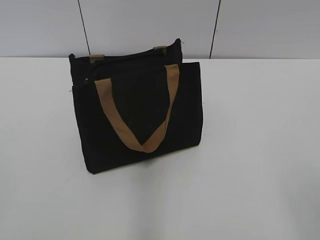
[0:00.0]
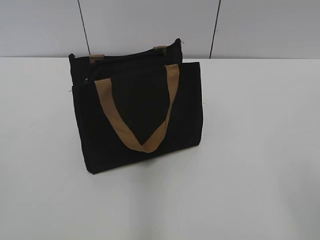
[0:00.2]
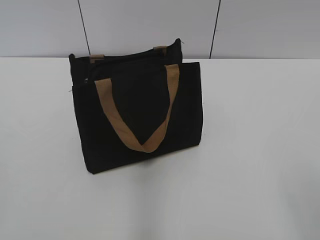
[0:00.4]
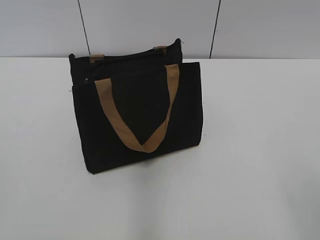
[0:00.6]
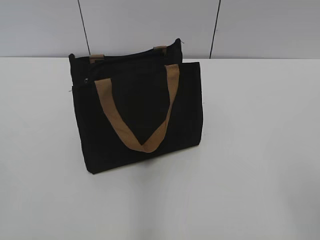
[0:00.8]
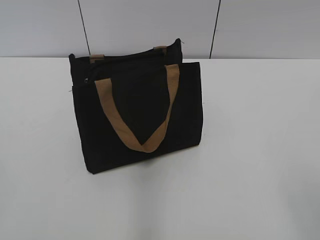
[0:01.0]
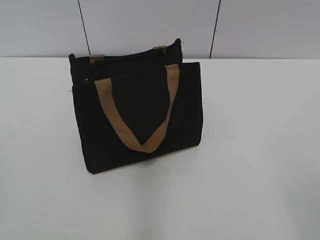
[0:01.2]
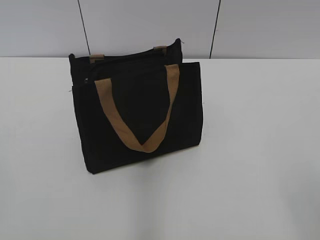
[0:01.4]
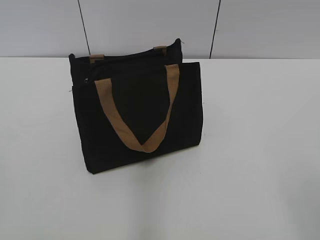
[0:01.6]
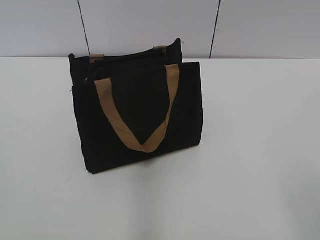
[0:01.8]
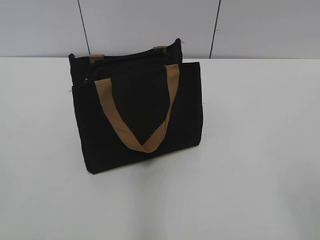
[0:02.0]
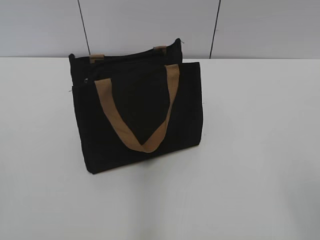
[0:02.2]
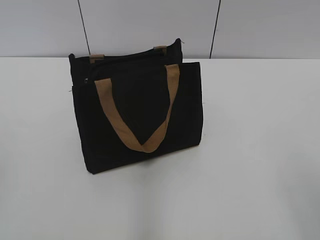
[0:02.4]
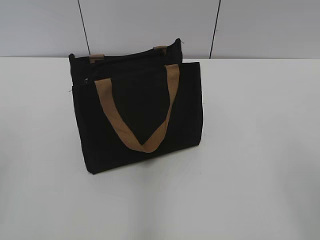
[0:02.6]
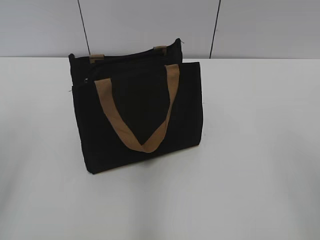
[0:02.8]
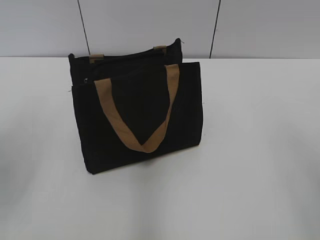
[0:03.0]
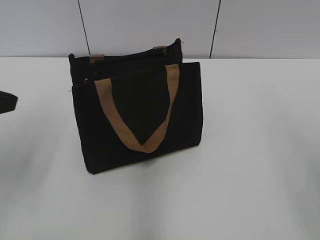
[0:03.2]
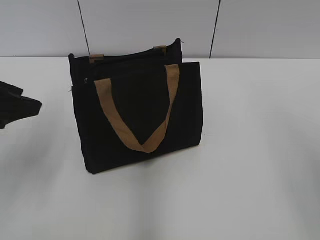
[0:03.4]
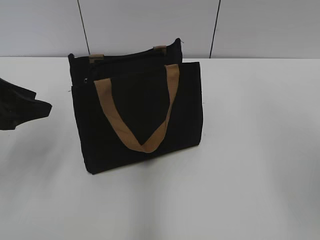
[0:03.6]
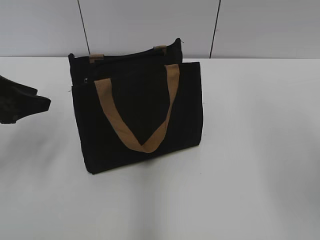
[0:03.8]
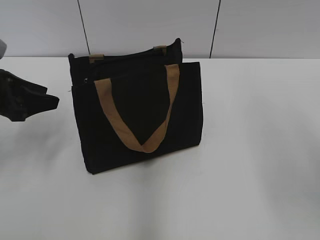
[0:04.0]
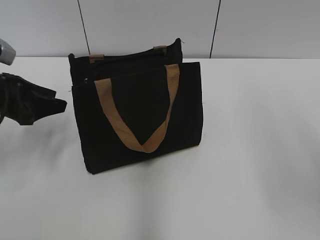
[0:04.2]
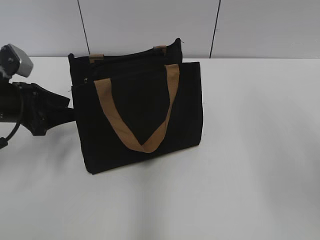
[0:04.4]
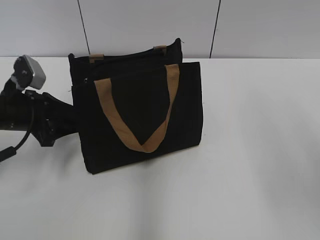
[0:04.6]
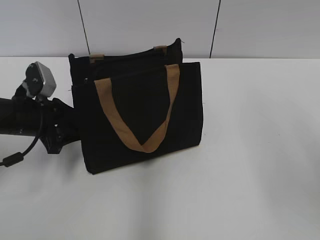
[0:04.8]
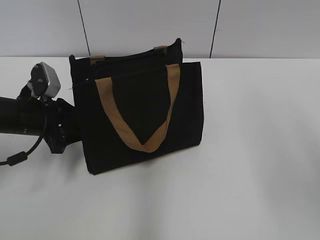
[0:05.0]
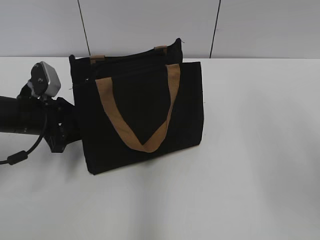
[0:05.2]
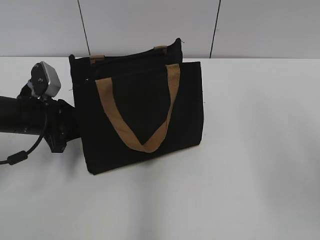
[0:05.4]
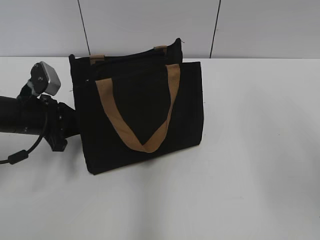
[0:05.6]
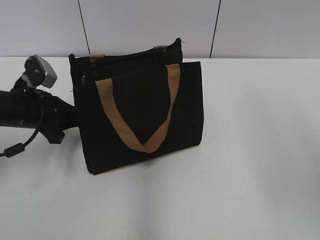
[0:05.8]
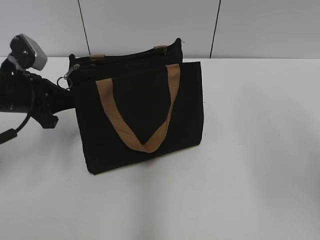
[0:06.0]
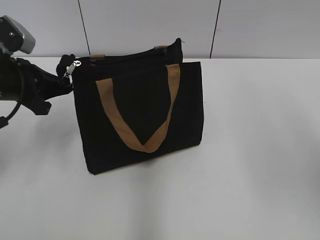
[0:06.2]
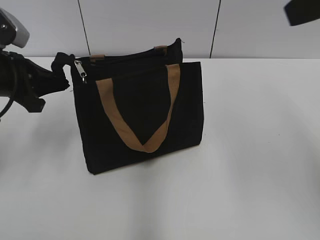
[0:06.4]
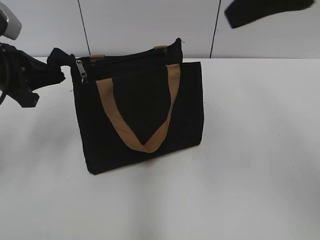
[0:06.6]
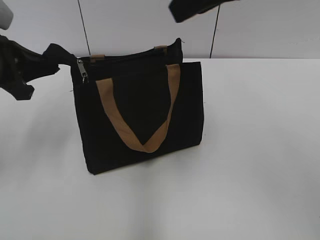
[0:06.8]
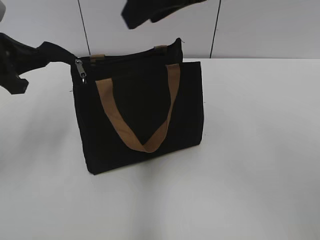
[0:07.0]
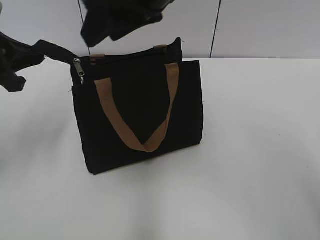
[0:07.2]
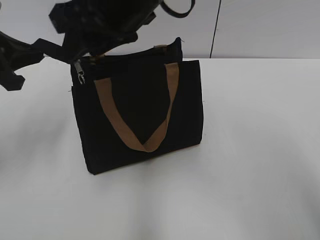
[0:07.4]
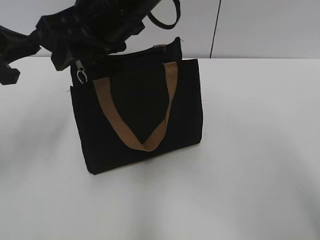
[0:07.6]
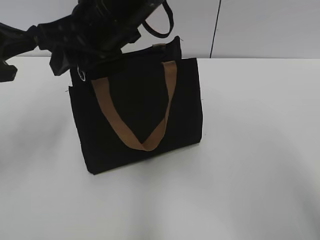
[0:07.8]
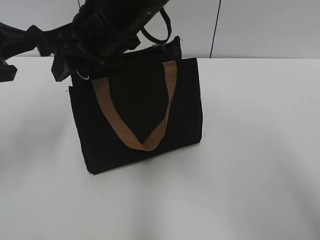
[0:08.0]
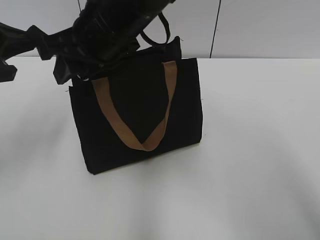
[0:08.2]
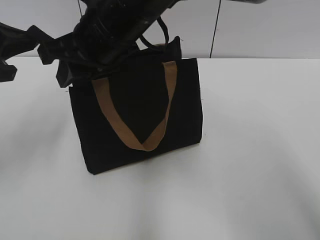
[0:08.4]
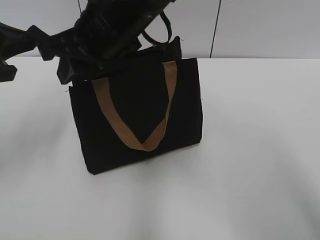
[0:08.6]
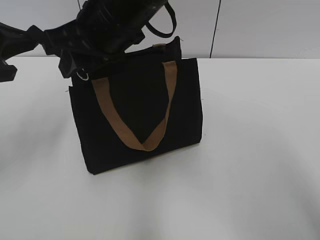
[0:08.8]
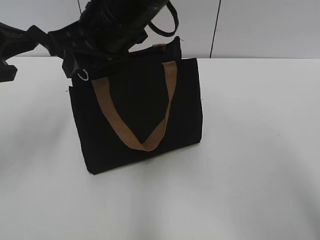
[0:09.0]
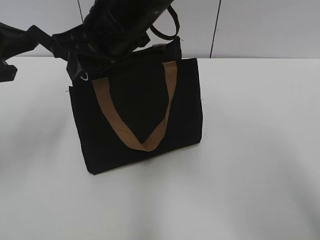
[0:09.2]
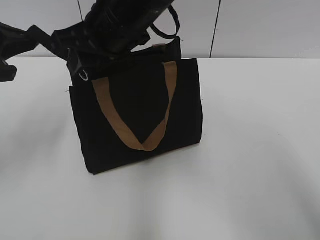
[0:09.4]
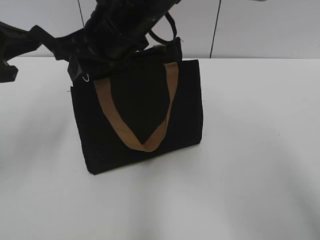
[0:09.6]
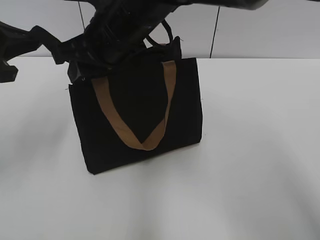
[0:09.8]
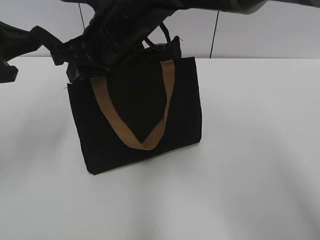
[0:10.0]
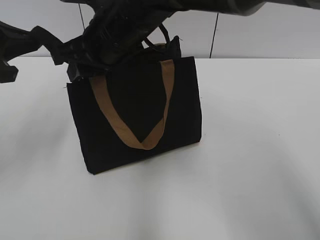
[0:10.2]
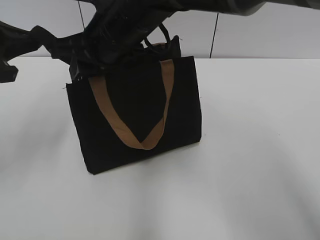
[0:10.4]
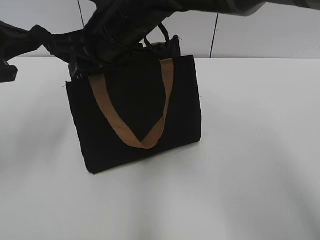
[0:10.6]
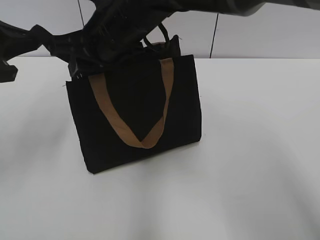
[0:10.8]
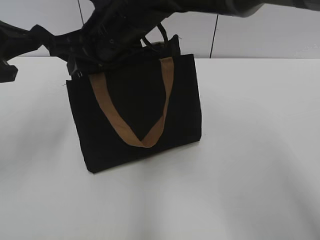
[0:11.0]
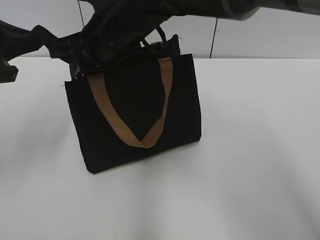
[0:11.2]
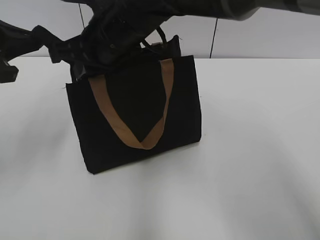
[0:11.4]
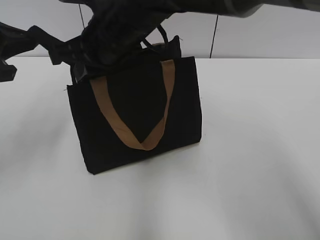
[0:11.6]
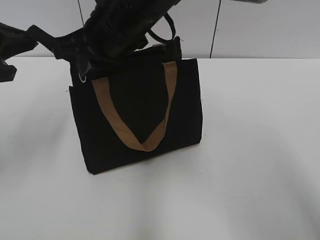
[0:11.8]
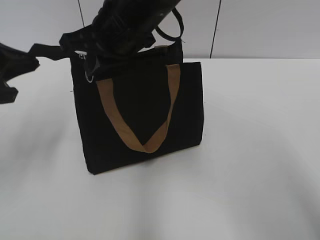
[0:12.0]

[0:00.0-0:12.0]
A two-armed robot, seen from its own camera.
0:01.6 to 0:03.0: The left gripper heads forward, covering approximately 15 cm.
0:03.0 to 0:04.4: The left gripper heads forward and downward, covering about 20 cm.
0:04.4 to 0:06.0: The left gripper closes.
0:06.0 to 0:07.6: The left gripper heads upward, covering about 10 cm, while the right gripper moves to the left and forward, approximately 30 cm.
0:07.6 to 0:09.0: The grippers move only a little.
0:09.0 to 0:10.4: The grippers stay close to where they were, moving slightly.
0:10.4 to 0:12.0: The right gripper closes up.

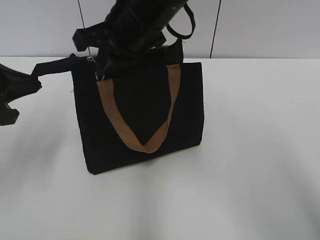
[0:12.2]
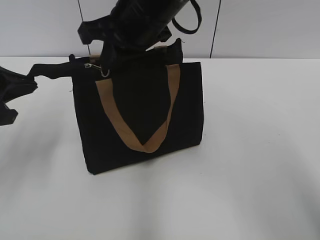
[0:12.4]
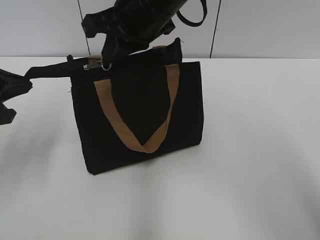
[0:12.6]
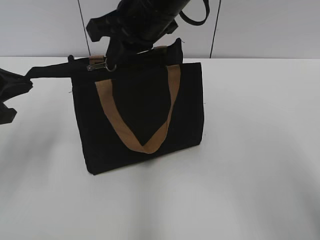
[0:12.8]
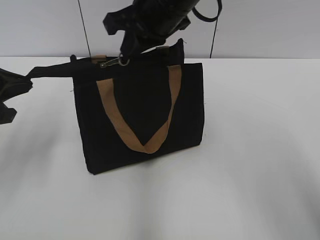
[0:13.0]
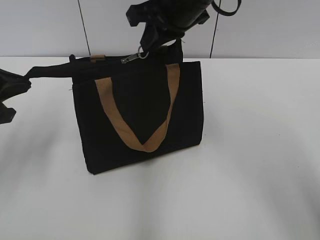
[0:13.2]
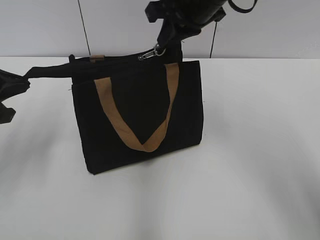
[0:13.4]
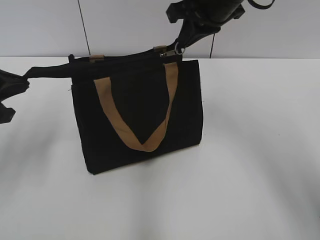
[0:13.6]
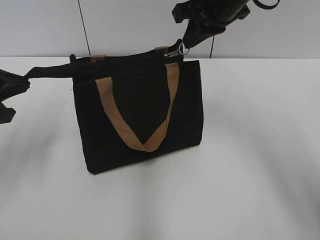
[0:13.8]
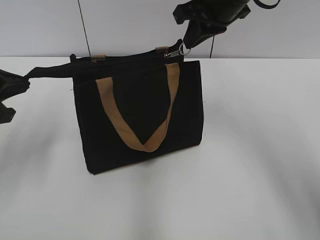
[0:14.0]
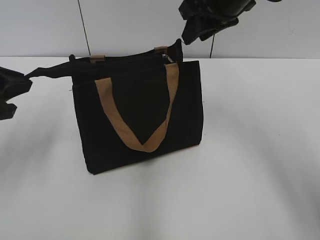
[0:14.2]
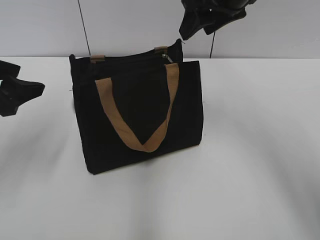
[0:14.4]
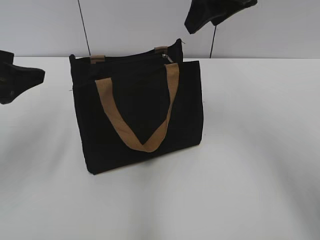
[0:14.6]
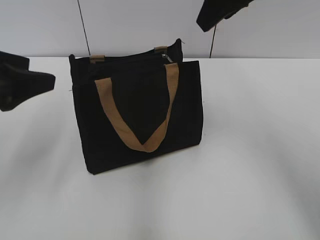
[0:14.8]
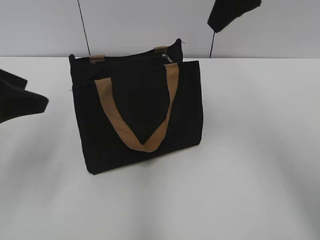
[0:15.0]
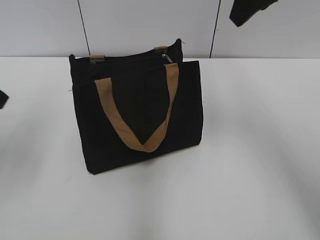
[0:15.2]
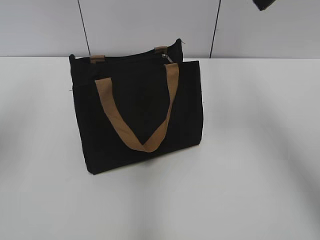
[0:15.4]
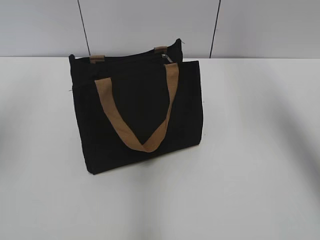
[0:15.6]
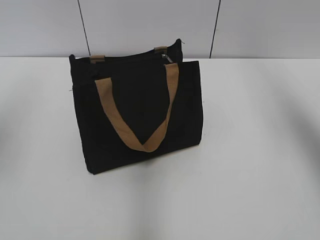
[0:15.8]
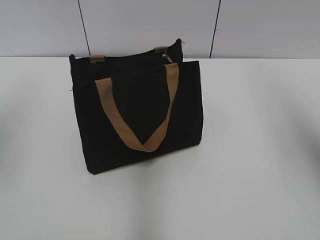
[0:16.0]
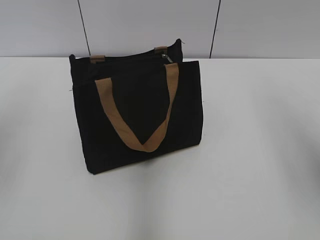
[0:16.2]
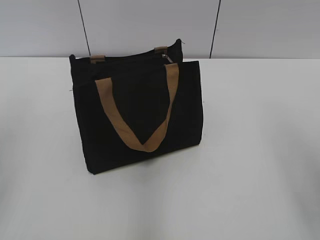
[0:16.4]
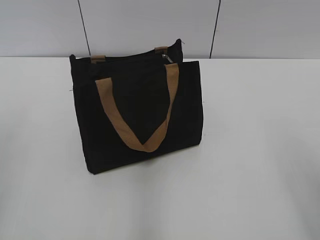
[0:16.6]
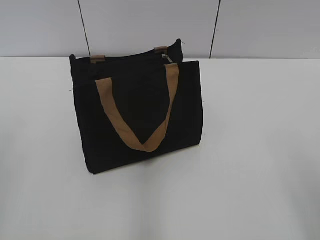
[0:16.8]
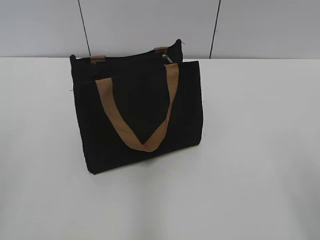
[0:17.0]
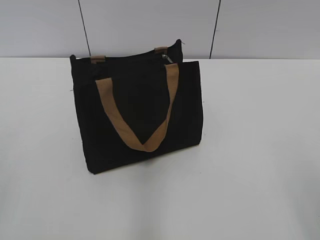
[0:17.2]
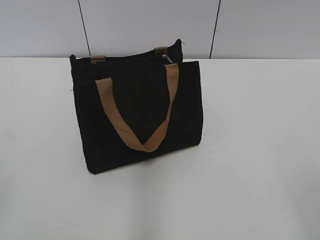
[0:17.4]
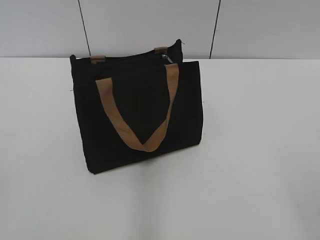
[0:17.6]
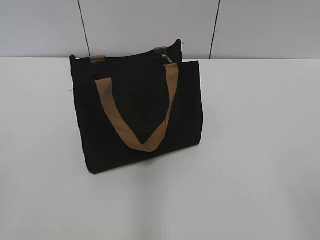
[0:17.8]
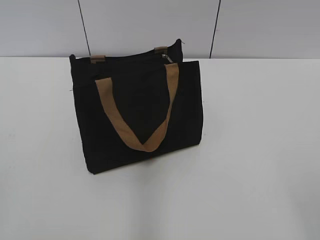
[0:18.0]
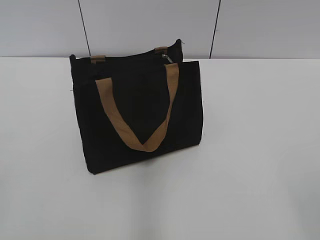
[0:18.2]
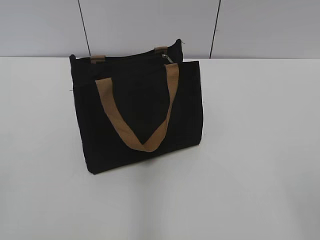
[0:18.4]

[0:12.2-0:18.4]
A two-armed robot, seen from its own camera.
Step, 0:14.2 to 0:14.4: Grab the zipper with your left hand.
0:12.2 to 0:13.8: The right gripper travels to the right and forward by roughly 15 cm.
0:13.8 to 0:15.4: The left gripper moves upward, roughly 10 cm, and opens its fingers. The right gripper moves upward, backward and to the right, approximately 15 cm, and opens its fingers.
0:15.4 to 0:16.8: The right gripper shifts about 30 cm backward, downward and to the right.

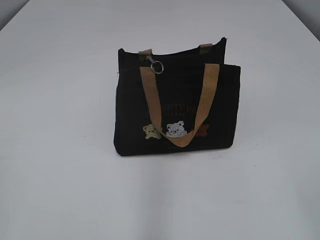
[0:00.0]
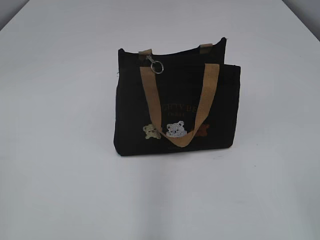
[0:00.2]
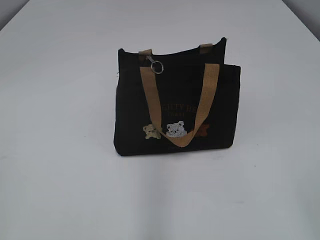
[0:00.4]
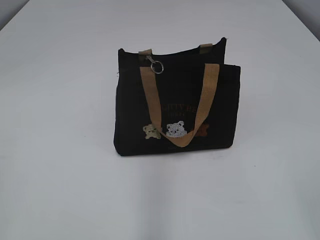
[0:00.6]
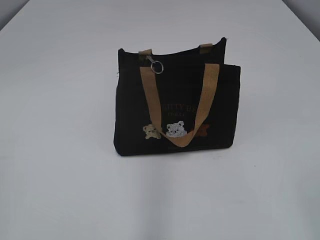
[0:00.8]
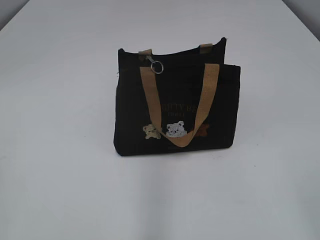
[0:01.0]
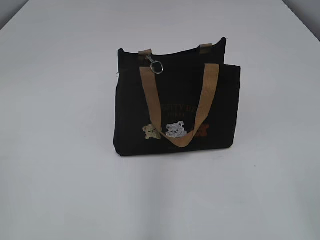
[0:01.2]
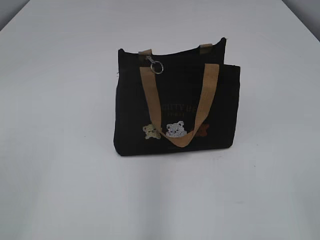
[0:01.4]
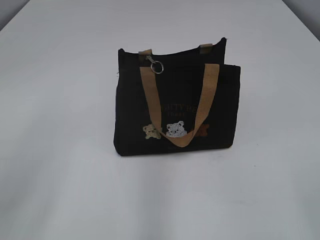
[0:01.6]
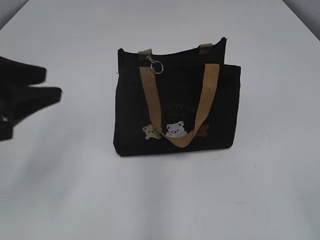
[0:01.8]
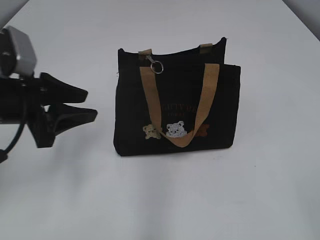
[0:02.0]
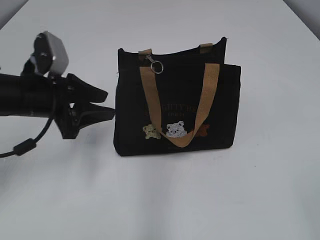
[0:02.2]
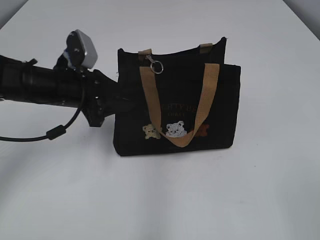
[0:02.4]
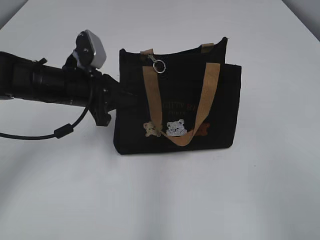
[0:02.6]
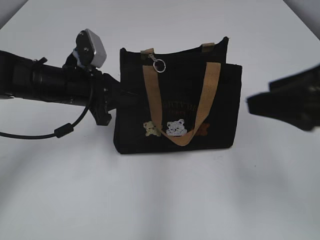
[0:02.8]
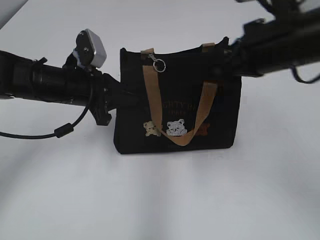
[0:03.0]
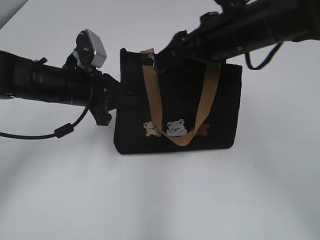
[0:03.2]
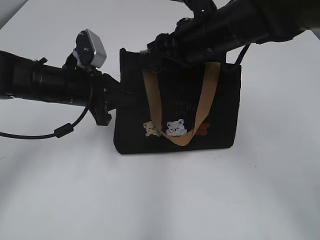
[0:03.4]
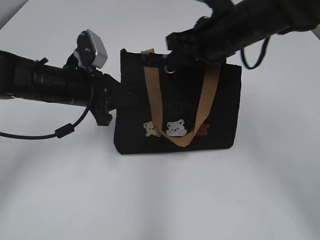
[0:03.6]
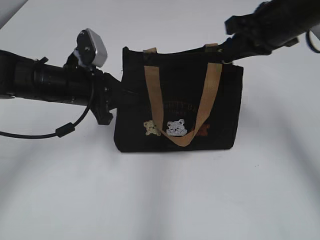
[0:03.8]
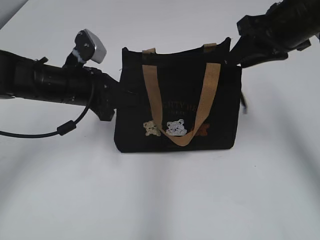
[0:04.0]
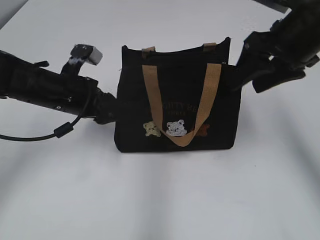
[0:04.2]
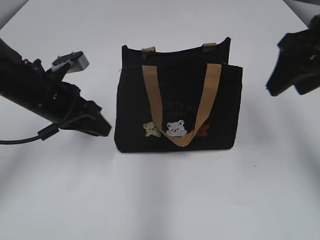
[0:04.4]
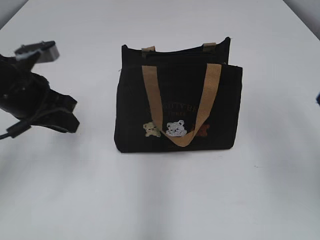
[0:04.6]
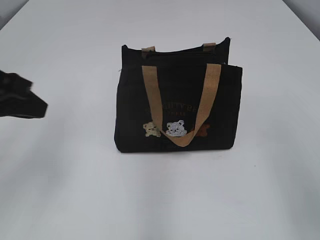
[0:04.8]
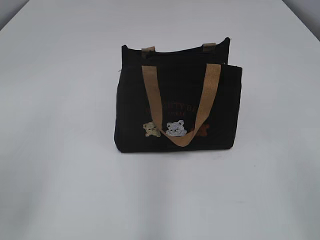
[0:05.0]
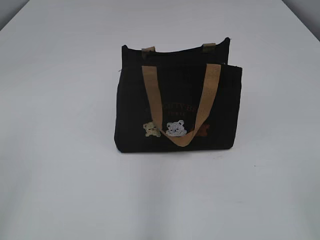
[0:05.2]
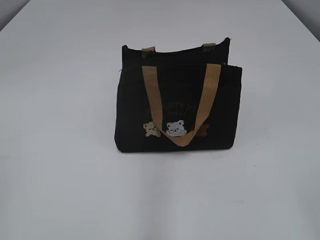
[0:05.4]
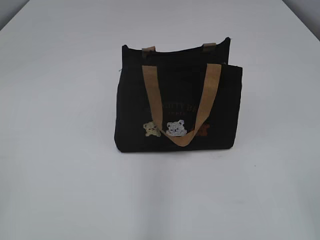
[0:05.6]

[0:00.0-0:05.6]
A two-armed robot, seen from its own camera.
Step, 0:00.0 to 0:03.8: Pull open the zipper with your right hand.
Step, 0:04.0 to 0:04.4: Hold the bag with your left hand.
0:01.4 to 0:02.8: The left gripper is displaced forward, to the right and downward by about 40 cm, and opens, then closes once more. The right gripper moves forward, roughly 15 cm.
0:02.8 to 0:04.2: The right gripper is displaced forward by roughly 20 cm, and closes and opens again; the left gripper opens up.
0:04.2 to 0:05.6: The right gripper moves backward, some 35 cm. Meanwhile the left gripper goes approximately 40 cm backward and to the left.
